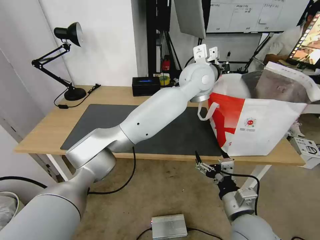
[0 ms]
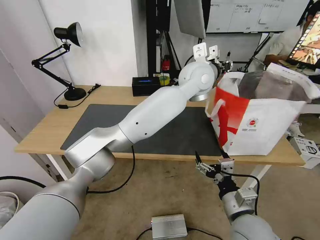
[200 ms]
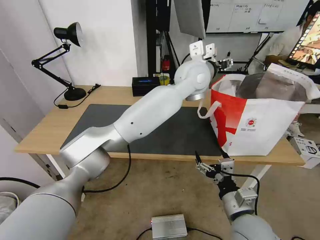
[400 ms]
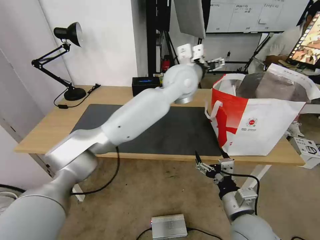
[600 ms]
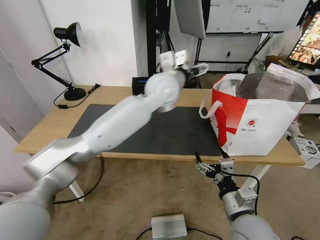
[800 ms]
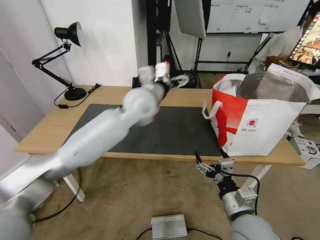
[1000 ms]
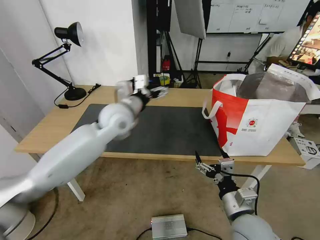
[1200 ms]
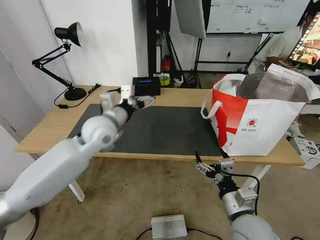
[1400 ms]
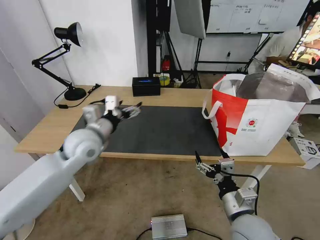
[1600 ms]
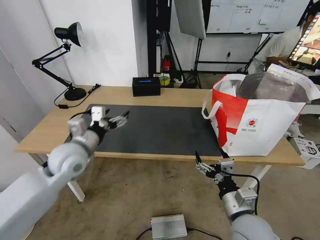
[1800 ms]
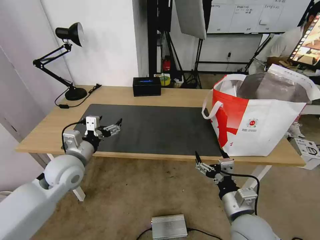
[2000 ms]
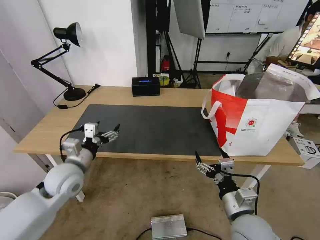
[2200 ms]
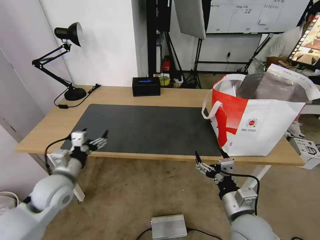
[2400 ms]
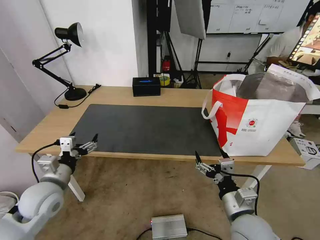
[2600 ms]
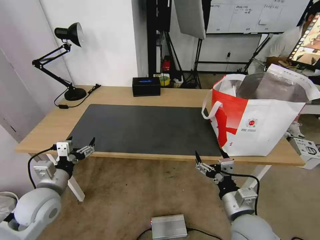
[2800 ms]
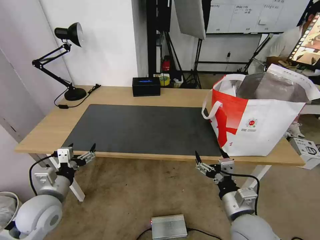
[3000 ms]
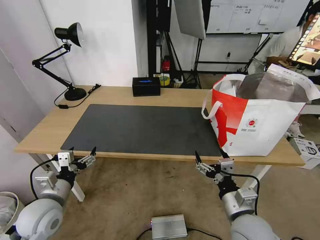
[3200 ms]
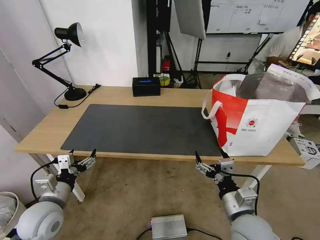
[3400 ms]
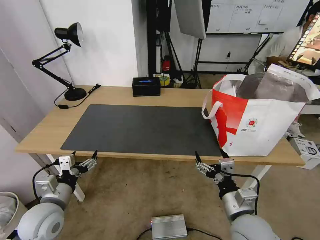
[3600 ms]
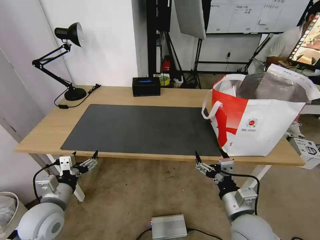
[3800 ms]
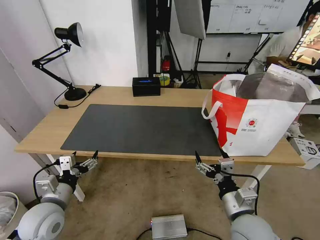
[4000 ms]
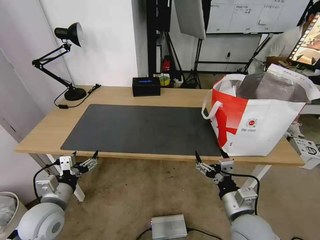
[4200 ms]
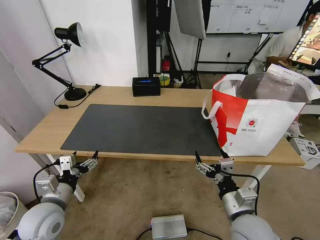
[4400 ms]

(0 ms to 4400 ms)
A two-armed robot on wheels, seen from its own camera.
Task of the whole recording: Pick up the trash from the table and place it into the takeout bag.
0 ms - 1400 ms: The left gripper moves to the left and downward, roughly 30 cm, and opens.
1400 ms - 3000 ms: The left gripper moves backward, to the left and downward, roughly 25 cm.
3000 ms - 4400 ms: The grippers make only small movements.

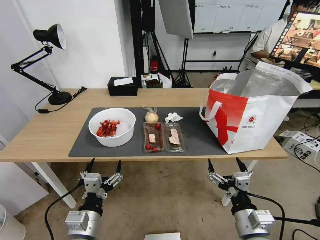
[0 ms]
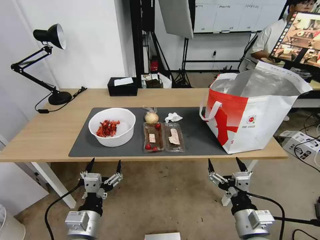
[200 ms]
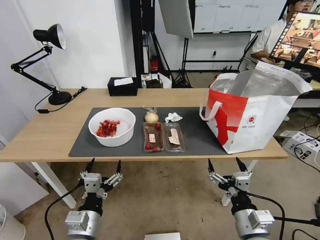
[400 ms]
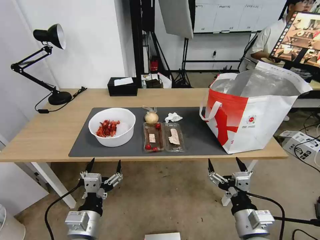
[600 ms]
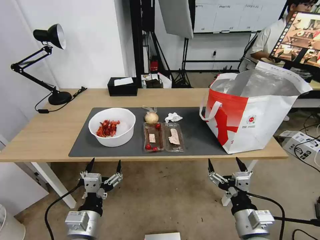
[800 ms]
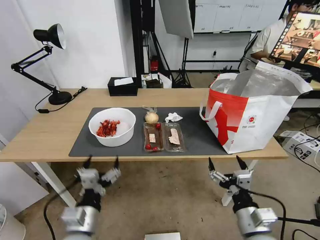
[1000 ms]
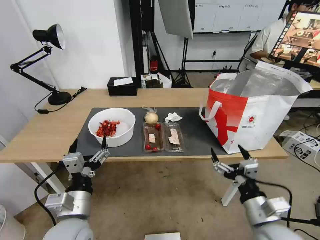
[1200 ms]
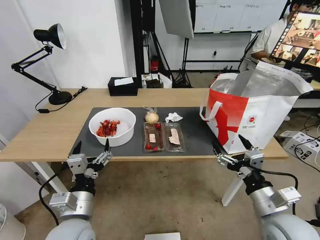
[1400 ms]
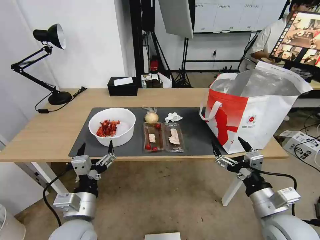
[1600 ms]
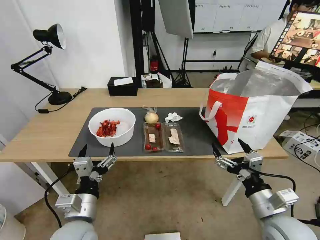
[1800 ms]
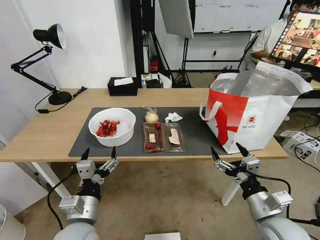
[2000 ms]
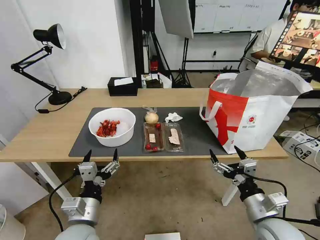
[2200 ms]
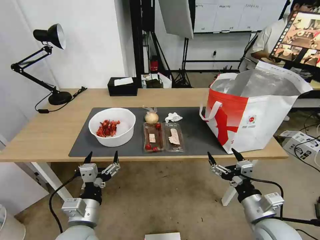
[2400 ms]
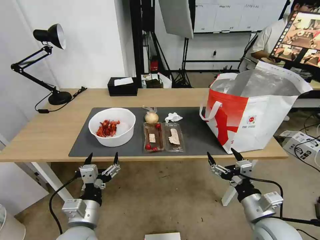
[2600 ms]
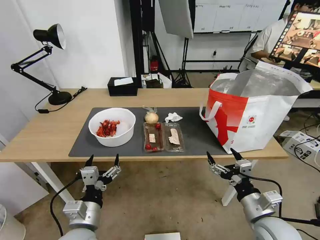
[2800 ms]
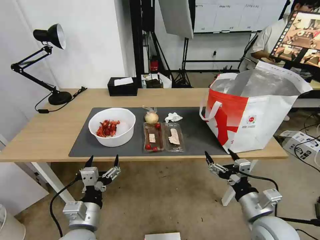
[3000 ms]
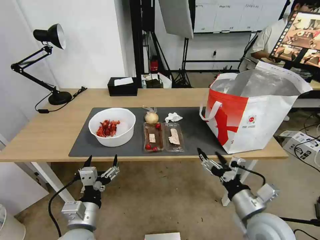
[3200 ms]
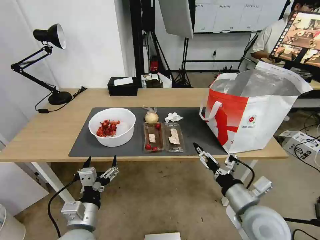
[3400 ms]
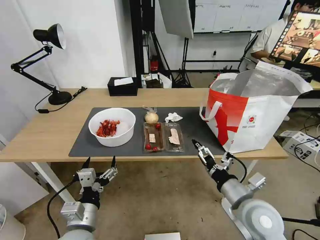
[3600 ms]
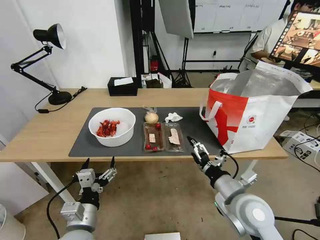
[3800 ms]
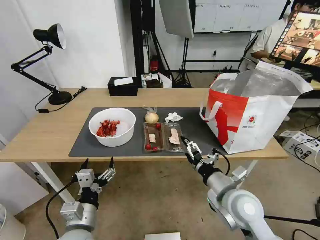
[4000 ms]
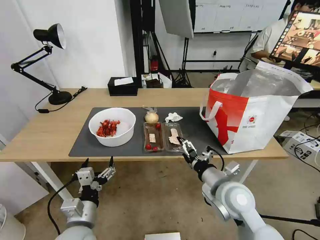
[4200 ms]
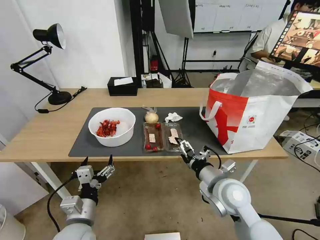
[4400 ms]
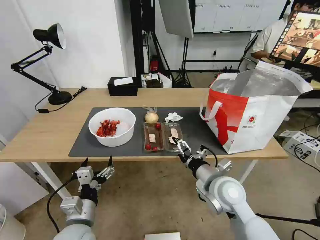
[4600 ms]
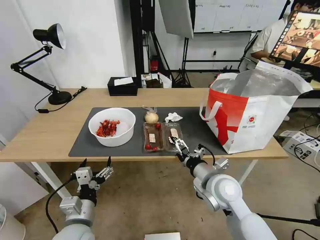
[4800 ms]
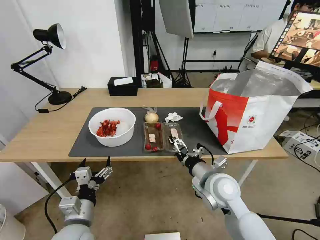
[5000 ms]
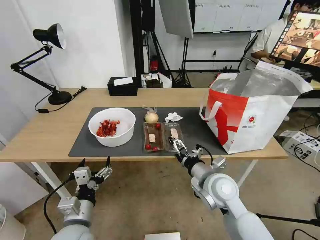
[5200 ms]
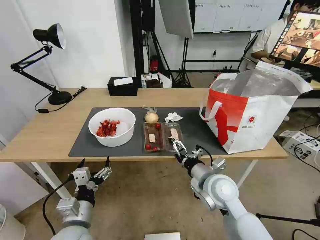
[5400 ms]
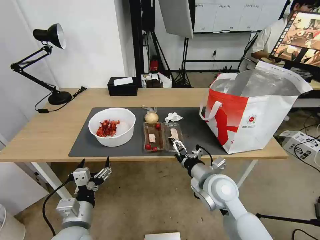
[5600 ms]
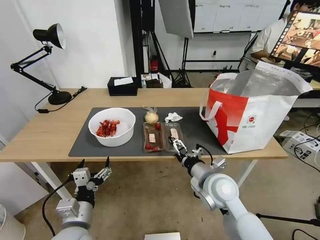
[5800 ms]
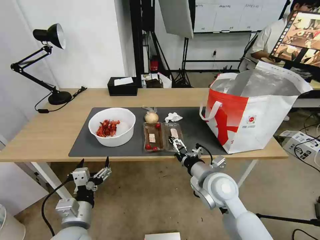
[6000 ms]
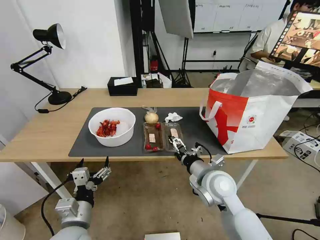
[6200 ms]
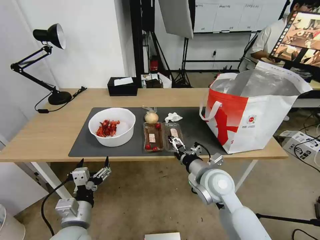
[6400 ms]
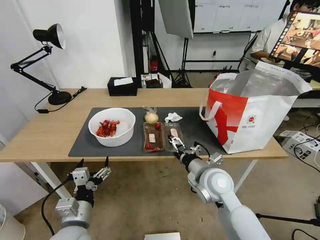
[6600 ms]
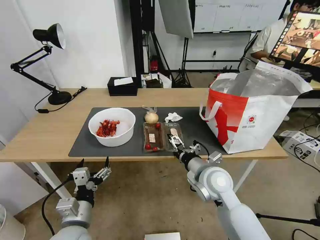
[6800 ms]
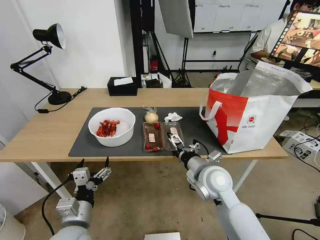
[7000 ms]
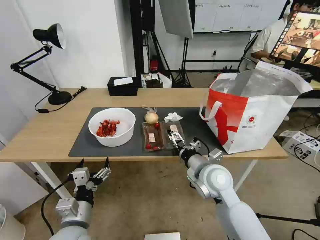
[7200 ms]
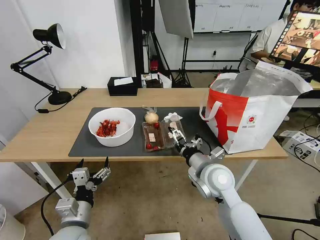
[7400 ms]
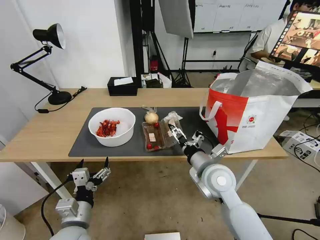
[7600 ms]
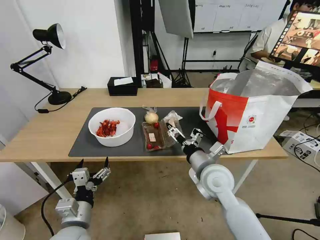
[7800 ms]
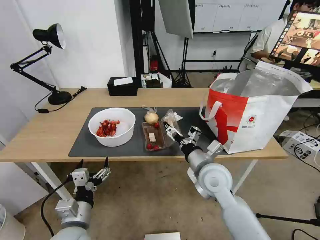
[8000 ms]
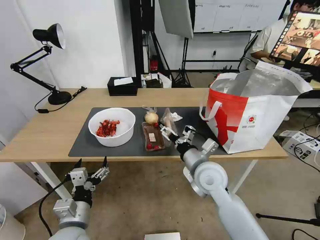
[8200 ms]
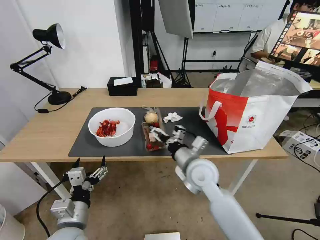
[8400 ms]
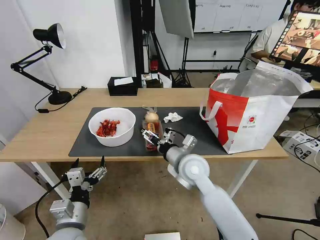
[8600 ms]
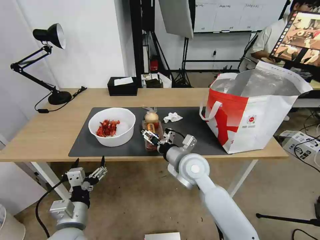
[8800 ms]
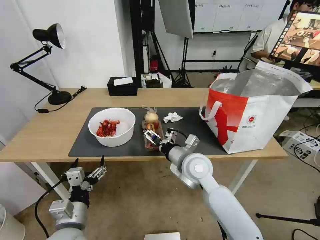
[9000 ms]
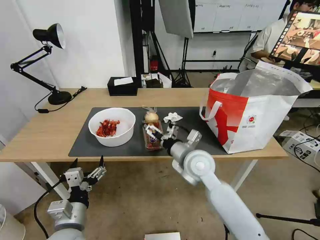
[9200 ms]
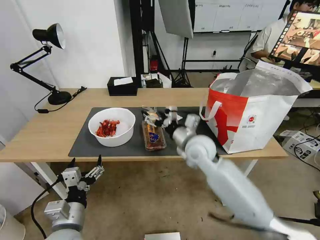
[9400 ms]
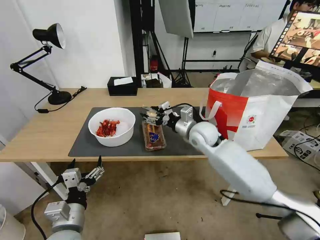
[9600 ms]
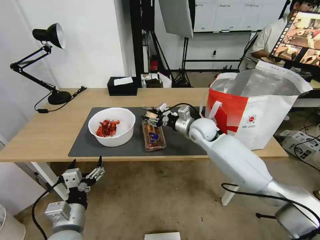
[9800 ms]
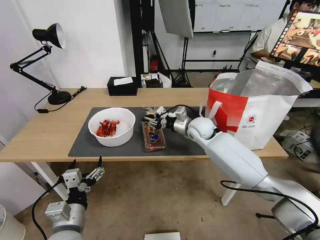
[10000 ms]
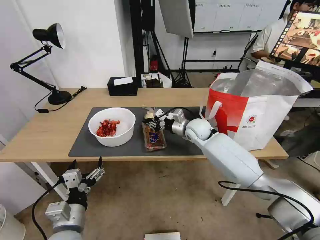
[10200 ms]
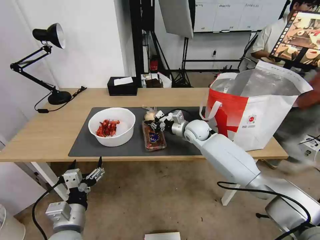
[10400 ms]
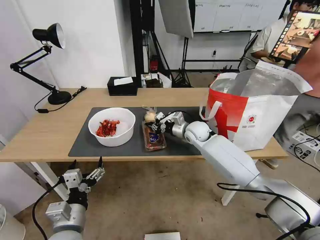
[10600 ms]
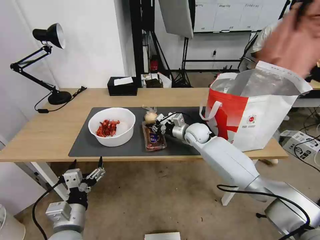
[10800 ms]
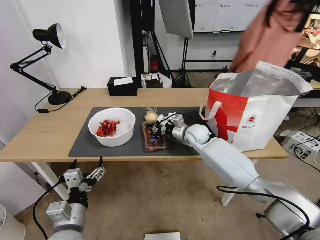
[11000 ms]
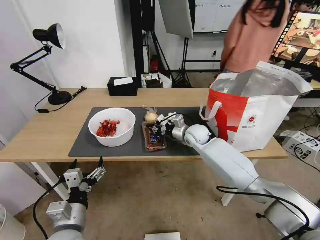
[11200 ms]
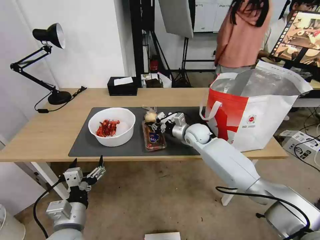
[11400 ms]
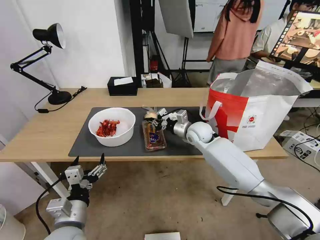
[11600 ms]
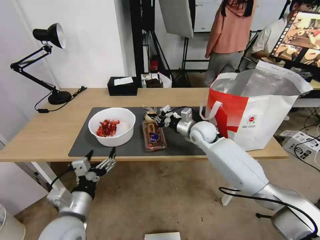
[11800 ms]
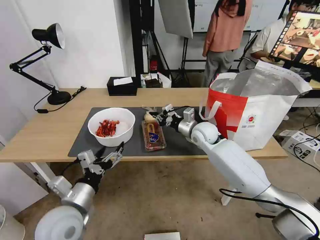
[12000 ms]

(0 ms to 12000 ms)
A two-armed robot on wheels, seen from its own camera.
Task of the whole recording: Pick up the trash from the table and place it into the takeout bag.
1600 ms - 3000 ms: The grippers make only small movements.
3000 ms - 4400 ms: The right gripper goes approximately 15 cm forward and to the left.
4400 ms - 7600 ms: There are only small adjustments of the grippers.
7600 ms - 9000 ms: The right gripper heads to the left, covering some 5 cm.
9000 ms - 10400 ms: The right gripper moves forward, roughly 20 cm, and closes its fingers.
10400 ms - 12000 ms: The left gripper moves roughly 5 cm.

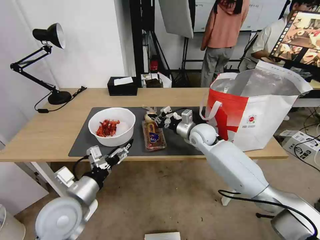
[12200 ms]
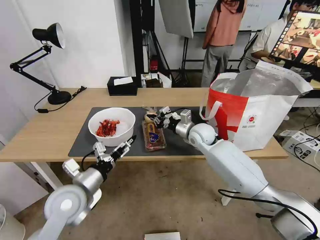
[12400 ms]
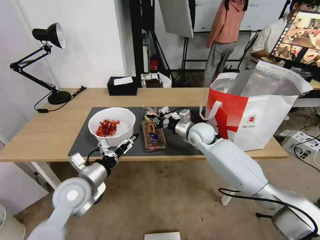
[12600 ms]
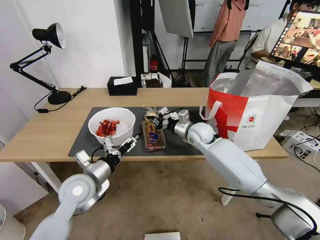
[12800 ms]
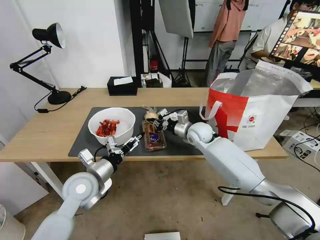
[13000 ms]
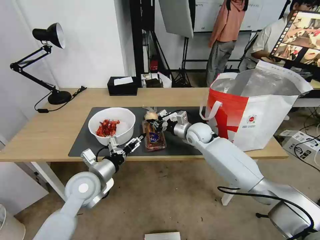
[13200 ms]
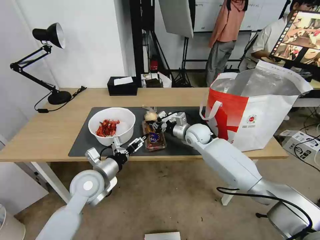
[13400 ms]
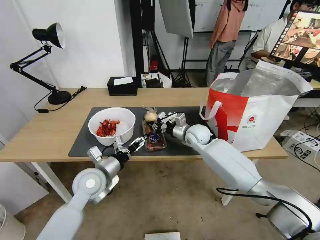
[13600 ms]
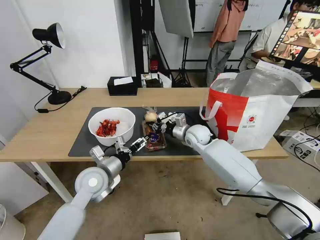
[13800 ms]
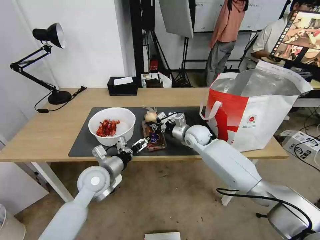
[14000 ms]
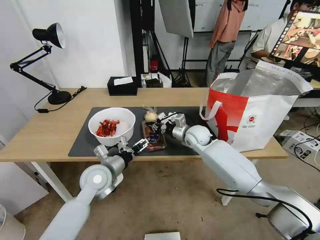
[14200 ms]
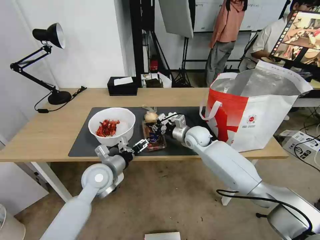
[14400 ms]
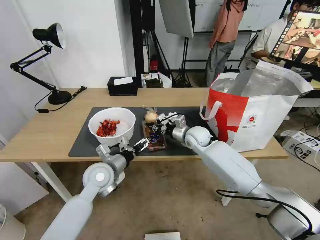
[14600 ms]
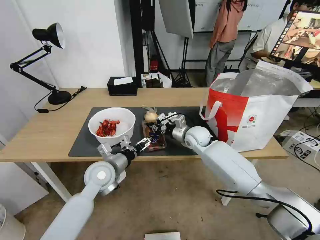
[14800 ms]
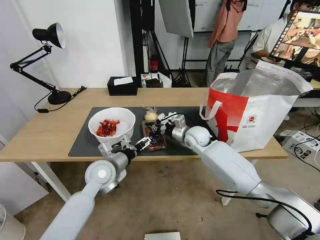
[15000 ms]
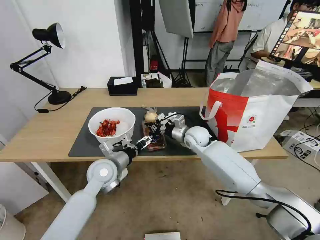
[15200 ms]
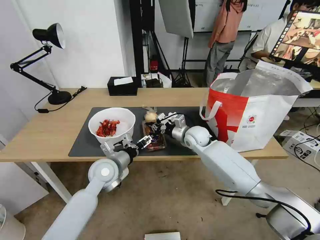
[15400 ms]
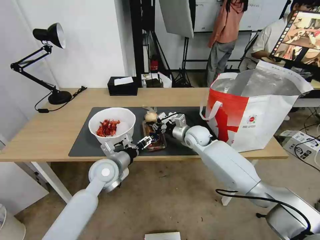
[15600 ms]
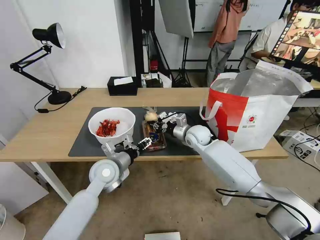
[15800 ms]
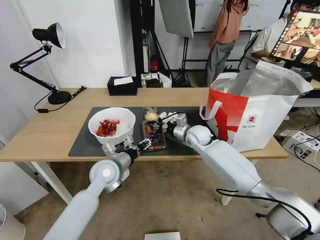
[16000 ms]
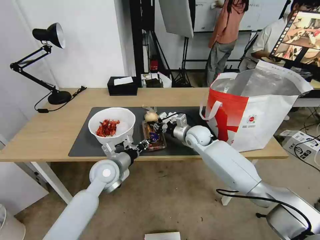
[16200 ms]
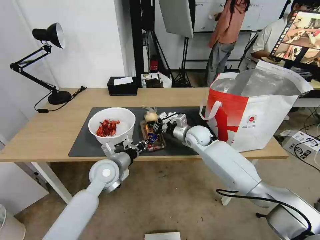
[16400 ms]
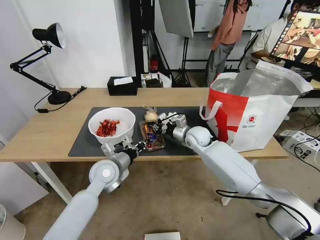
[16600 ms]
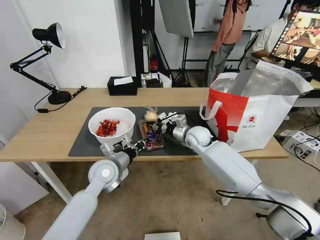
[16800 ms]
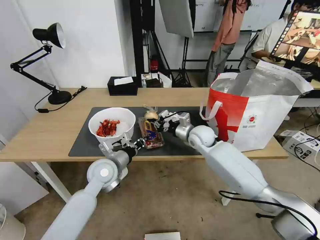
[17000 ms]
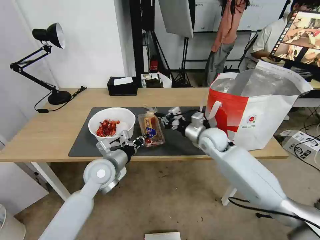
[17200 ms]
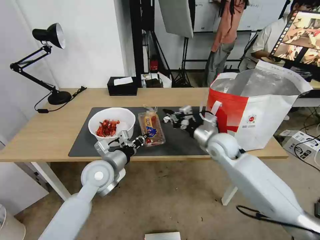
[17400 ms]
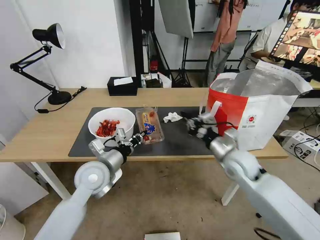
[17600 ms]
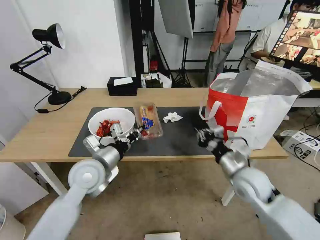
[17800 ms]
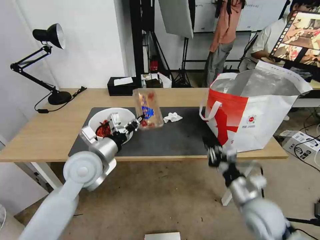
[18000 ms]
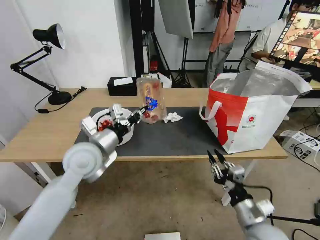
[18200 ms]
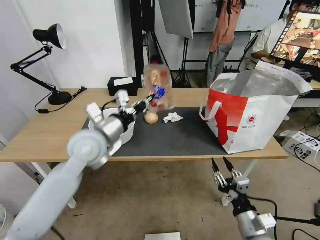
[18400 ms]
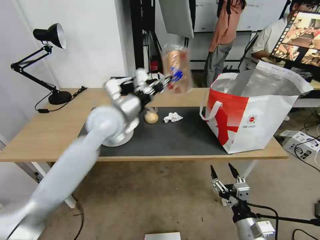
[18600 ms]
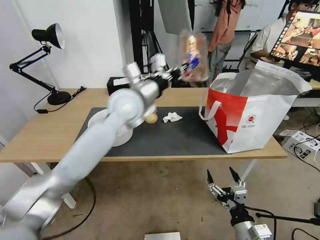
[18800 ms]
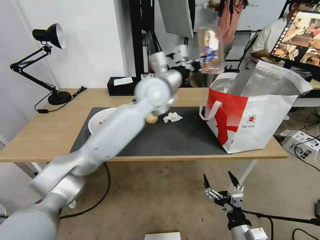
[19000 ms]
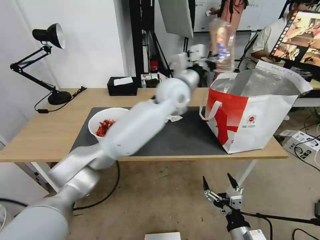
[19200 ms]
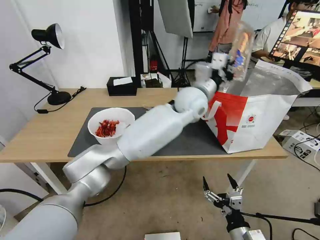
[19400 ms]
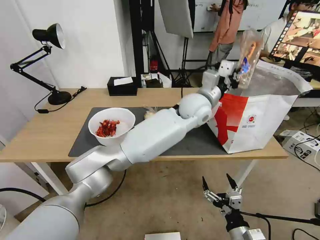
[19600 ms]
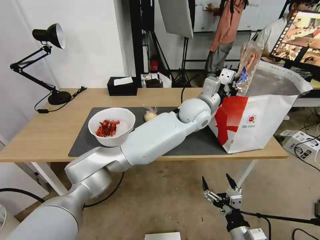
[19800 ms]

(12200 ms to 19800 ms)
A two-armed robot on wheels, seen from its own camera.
Task of the whole recording: Pick up the trash from the table and place it into the takeout bag.
12200 ms - 13800 ms: The left gripper goes some 10 cm forward.
13800 ms - 15200 ms: There are only small adjustments of the grippers.
15200 ms - 16800 ms: The left gripper closes its fingers.
16800 ms - 18200 ms: The left gripper goes some 10 cm upward, while the right gripper travels backward by some 35 cm.
18200 ms - 19800 ms: The right gripper goes approximately 10 cm backward and downward, and opens; the left gripper goes some 35 cm to the right and forward.
